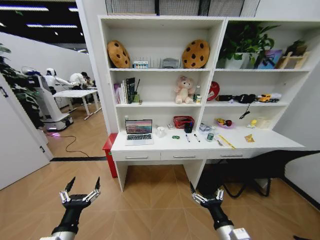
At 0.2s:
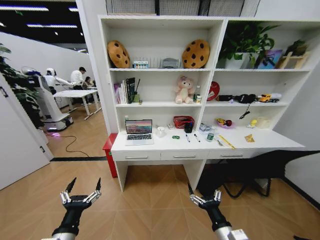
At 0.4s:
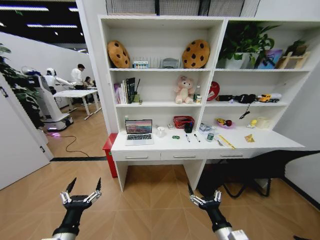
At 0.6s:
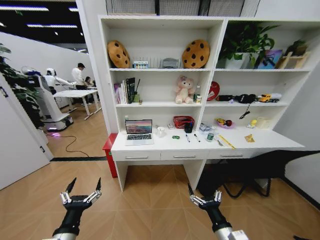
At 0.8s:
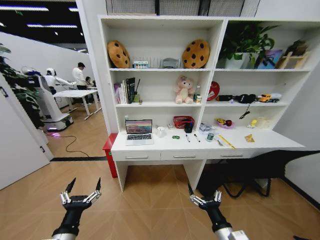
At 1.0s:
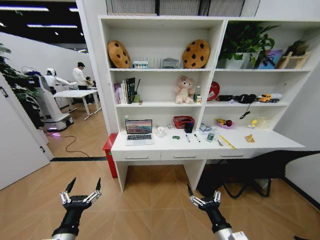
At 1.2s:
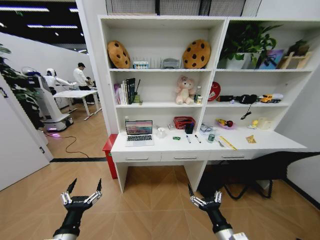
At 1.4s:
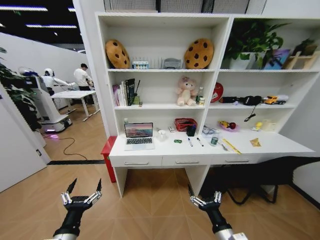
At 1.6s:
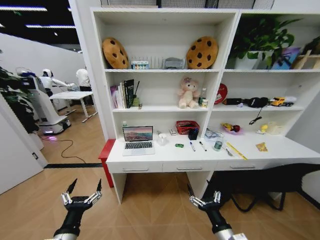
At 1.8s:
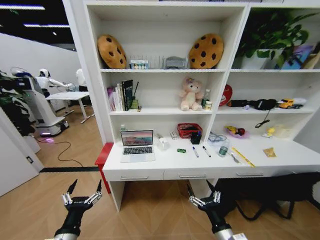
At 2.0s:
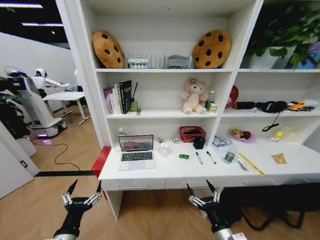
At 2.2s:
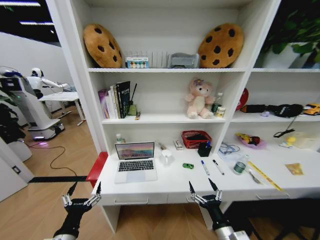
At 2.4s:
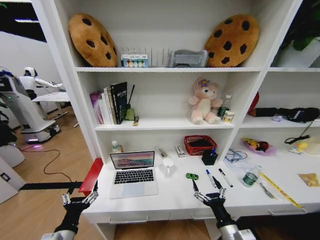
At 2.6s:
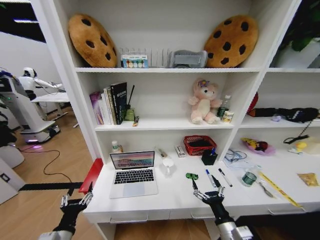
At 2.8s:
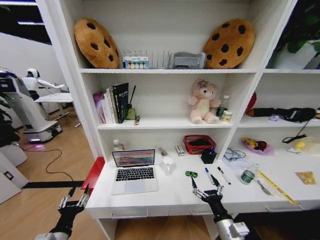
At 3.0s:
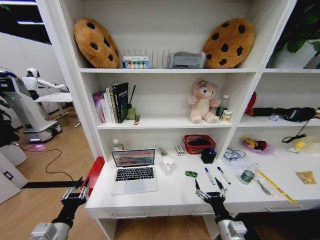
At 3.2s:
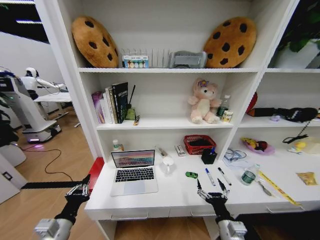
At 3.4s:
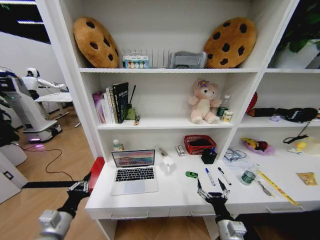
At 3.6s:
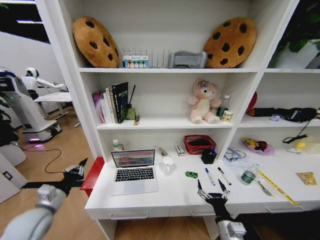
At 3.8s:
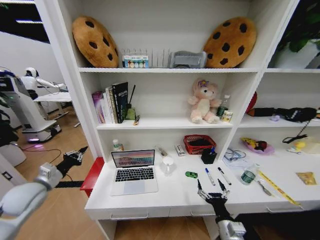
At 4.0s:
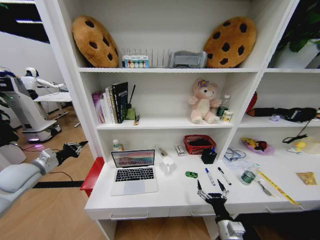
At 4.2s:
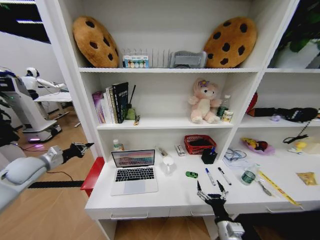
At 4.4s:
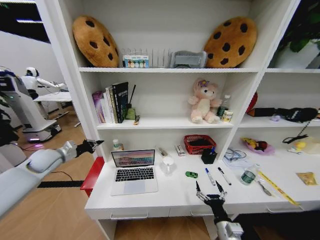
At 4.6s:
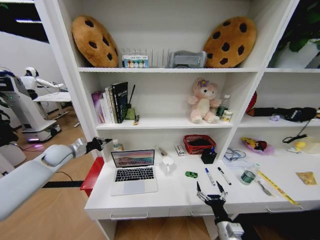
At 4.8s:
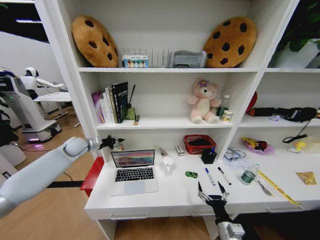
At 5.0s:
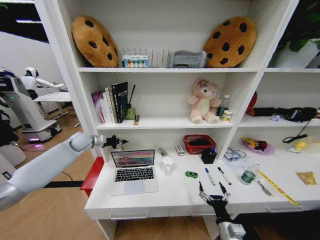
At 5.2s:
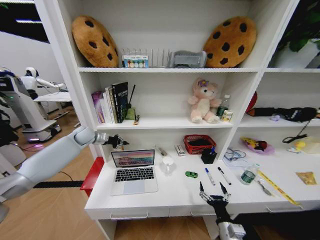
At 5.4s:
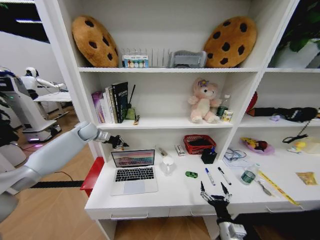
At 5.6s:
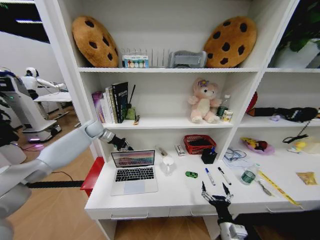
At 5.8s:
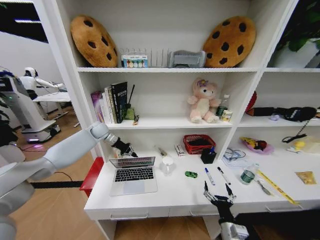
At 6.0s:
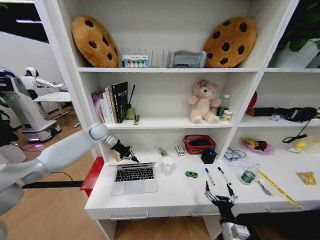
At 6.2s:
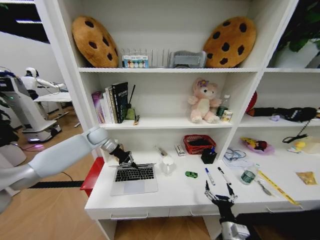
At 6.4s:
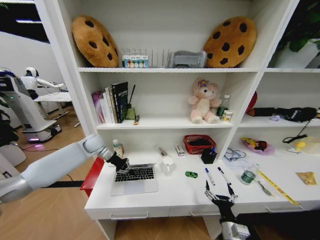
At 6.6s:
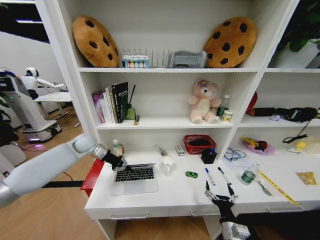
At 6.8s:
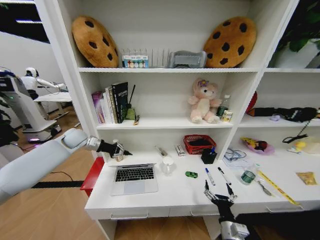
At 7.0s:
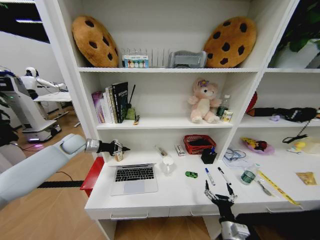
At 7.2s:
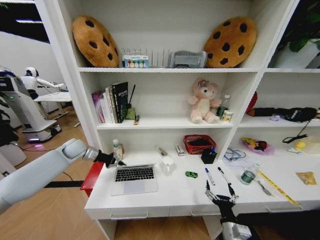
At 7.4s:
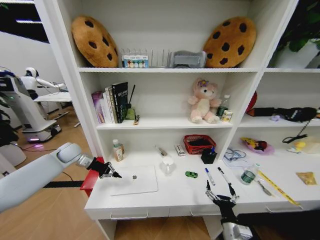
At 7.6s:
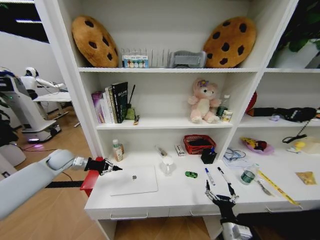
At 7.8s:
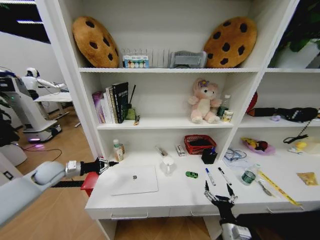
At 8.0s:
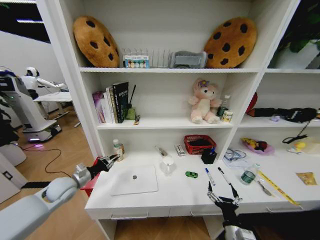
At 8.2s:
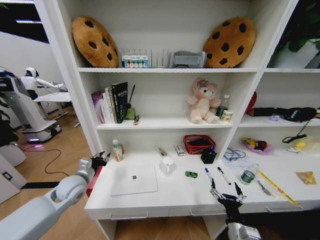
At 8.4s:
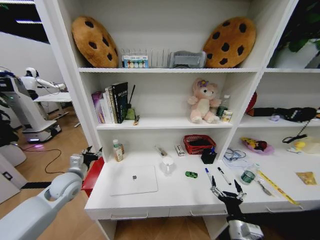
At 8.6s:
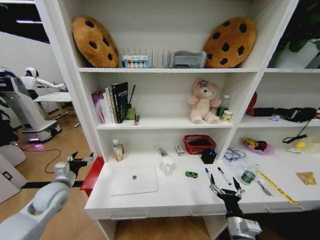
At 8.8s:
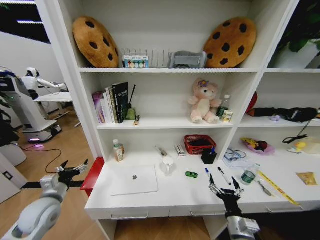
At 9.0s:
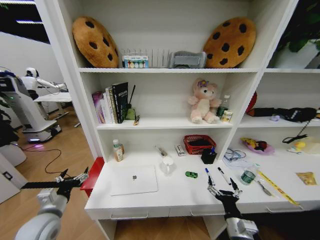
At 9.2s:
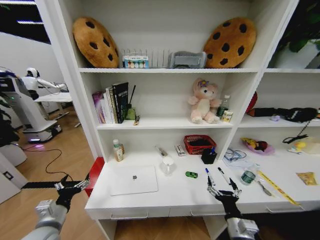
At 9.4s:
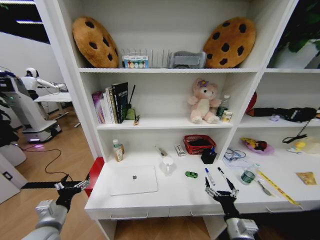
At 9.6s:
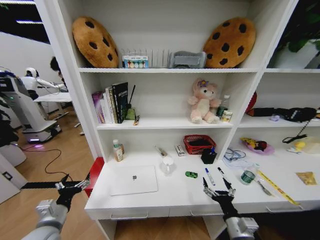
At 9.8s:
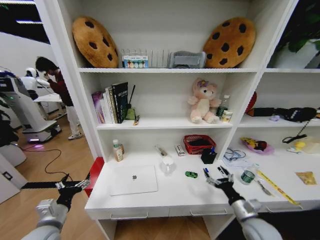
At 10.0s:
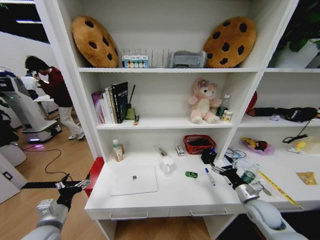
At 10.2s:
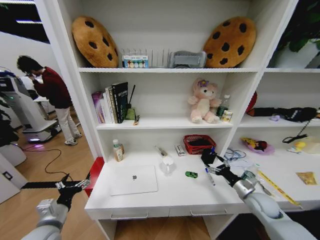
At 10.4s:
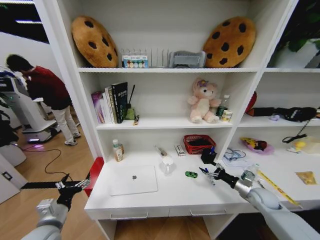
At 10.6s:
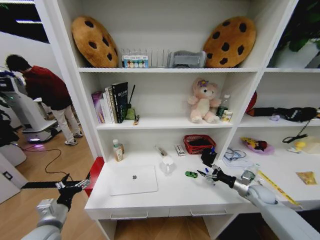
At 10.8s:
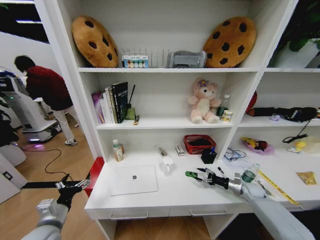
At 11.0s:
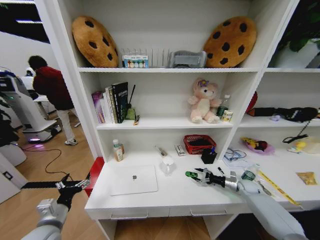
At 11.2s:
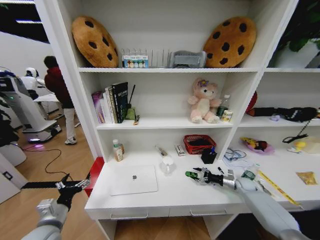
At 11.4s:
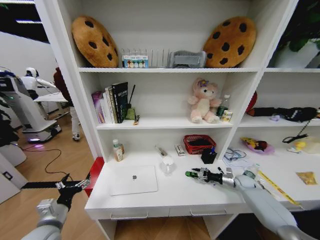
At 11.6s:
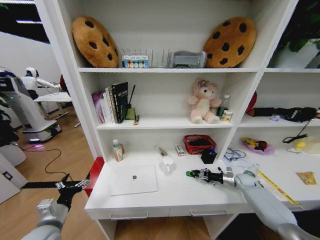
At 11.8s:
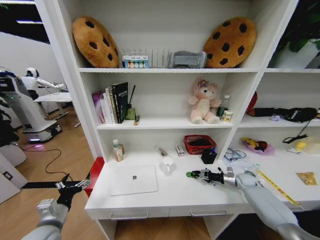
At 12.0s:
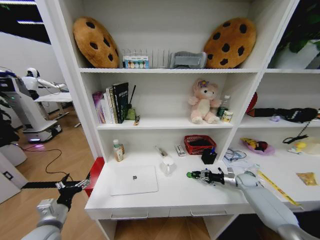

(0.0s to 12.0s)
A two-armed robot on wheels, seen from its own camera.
Task of the whole recording: Organize the objects on the table.
1.6s - 3.0s: The left gripper ends up about 5 cm from where it was, and closes.
3.0s - 4.4s: The left gripper shifts roughly 30 cm forward and to the left.
4.4s - 6.0s: The left gripper heads to the right and forward, covering some 20 cm.
6.0s - 7.6s: The left gripper is displaced to the left, backward and downward by about 20 cm.
7.6s - 9.0s: The left gripper moves backward, about 25 cm, and opens.
9.0s - 10.4s: The right gripper moves to the right and forward, approximately 30 cm.
10.4s - 12.0s: The right gripper moves forward, about 10 cm, and closes.

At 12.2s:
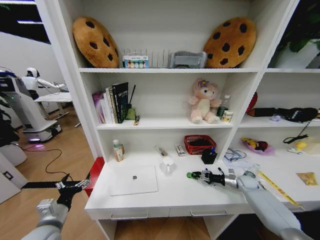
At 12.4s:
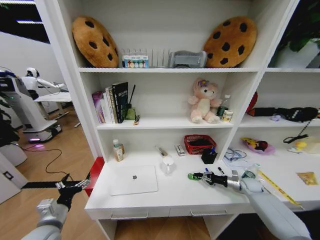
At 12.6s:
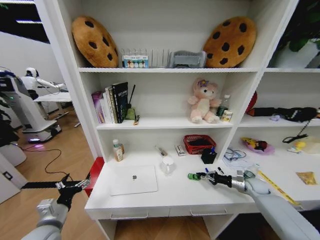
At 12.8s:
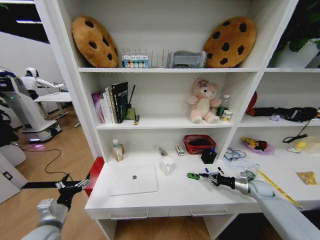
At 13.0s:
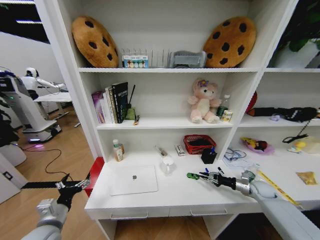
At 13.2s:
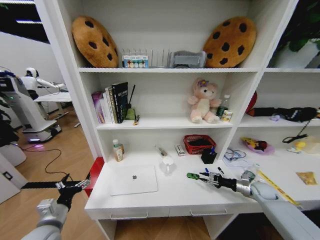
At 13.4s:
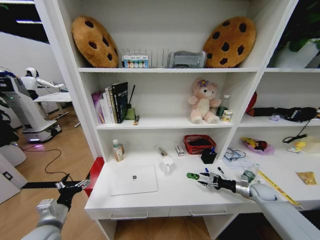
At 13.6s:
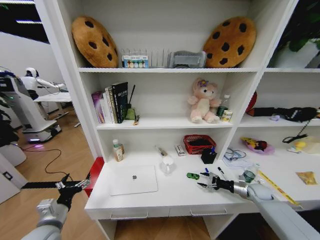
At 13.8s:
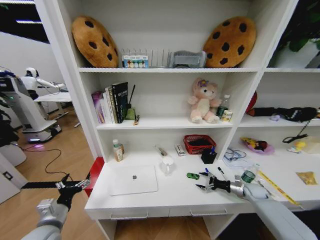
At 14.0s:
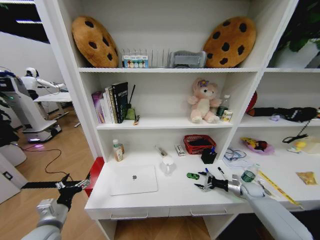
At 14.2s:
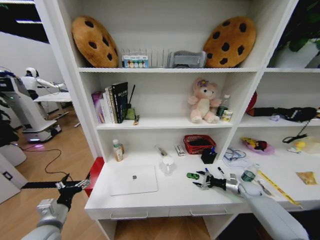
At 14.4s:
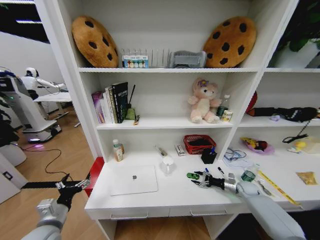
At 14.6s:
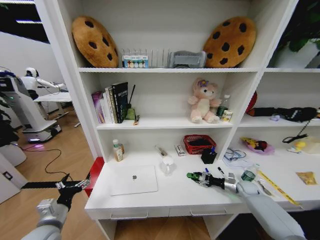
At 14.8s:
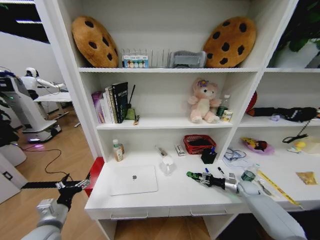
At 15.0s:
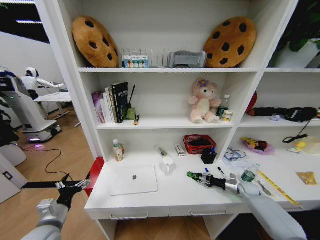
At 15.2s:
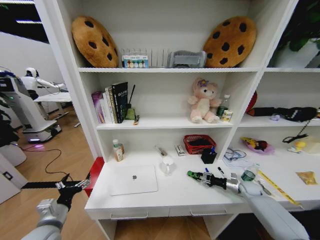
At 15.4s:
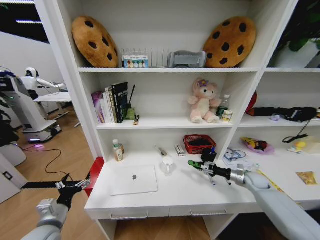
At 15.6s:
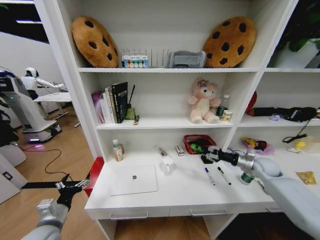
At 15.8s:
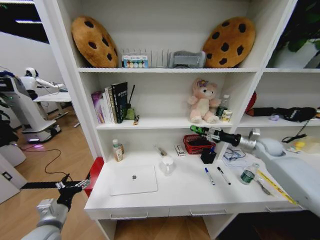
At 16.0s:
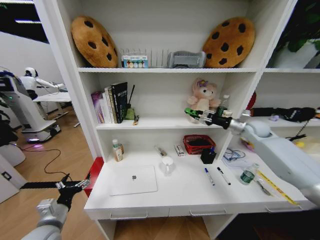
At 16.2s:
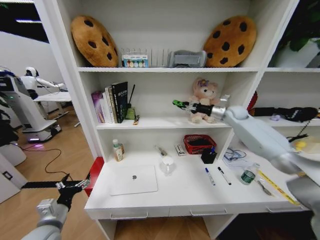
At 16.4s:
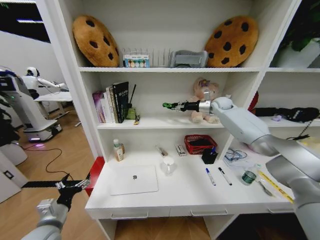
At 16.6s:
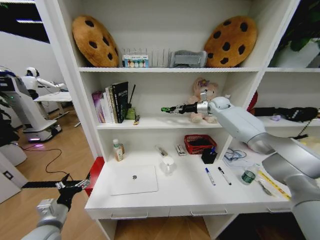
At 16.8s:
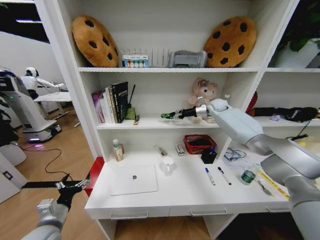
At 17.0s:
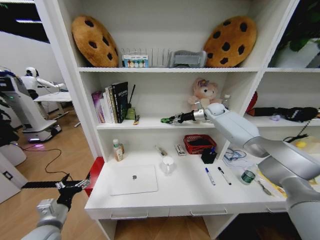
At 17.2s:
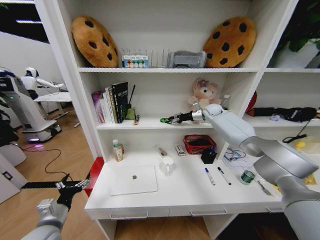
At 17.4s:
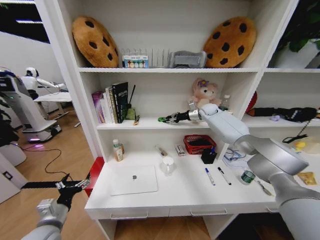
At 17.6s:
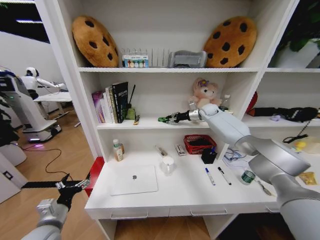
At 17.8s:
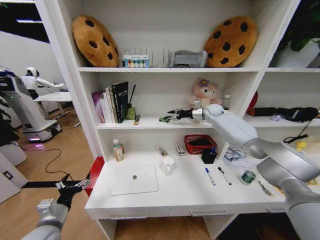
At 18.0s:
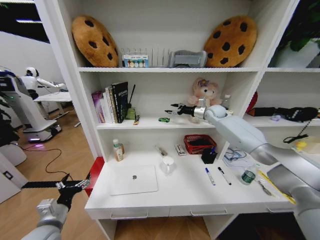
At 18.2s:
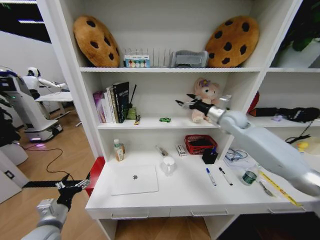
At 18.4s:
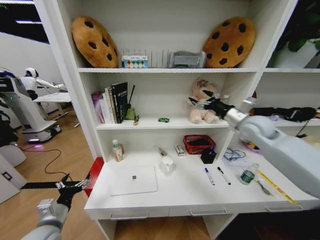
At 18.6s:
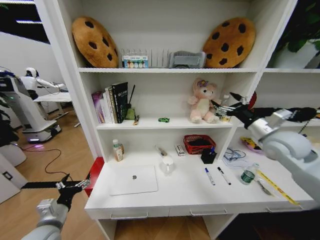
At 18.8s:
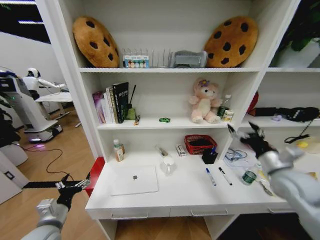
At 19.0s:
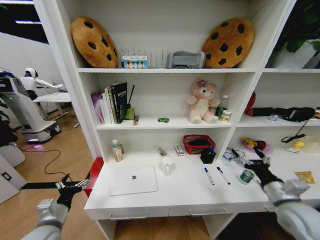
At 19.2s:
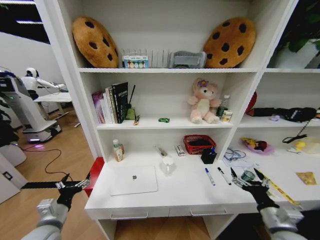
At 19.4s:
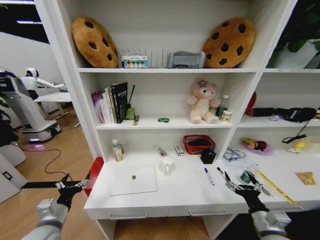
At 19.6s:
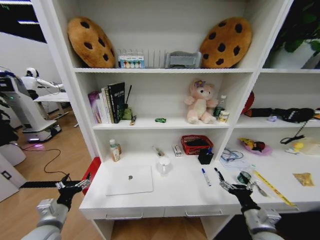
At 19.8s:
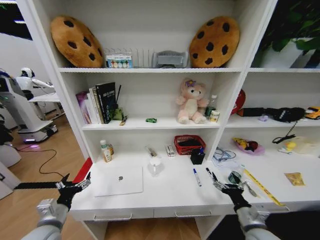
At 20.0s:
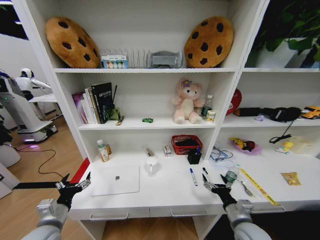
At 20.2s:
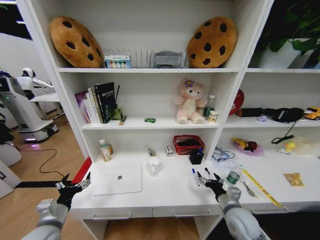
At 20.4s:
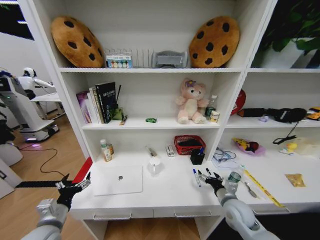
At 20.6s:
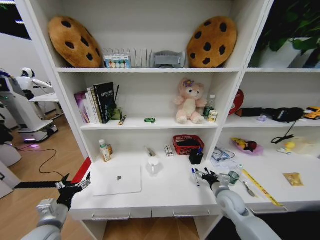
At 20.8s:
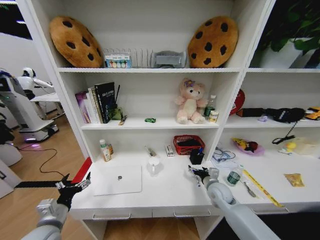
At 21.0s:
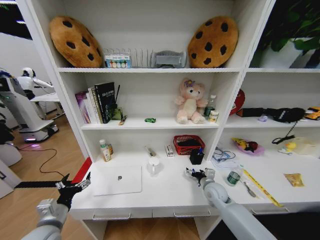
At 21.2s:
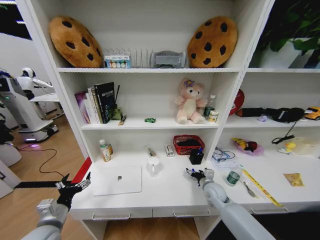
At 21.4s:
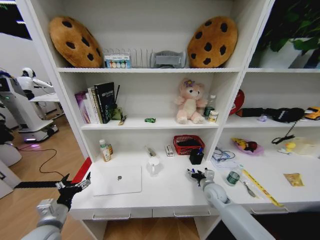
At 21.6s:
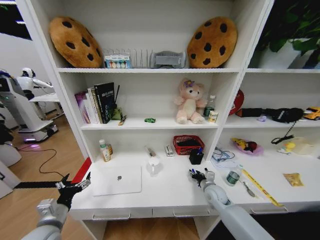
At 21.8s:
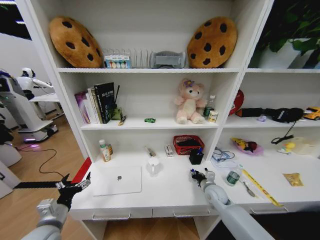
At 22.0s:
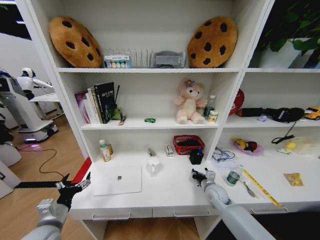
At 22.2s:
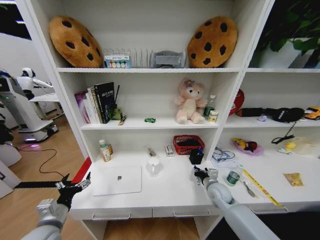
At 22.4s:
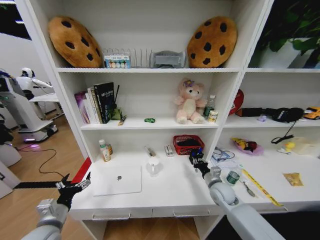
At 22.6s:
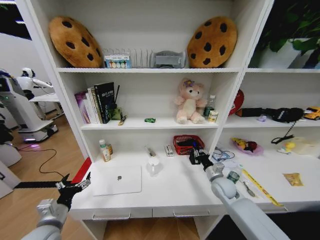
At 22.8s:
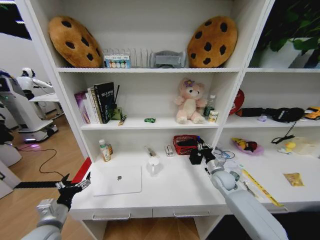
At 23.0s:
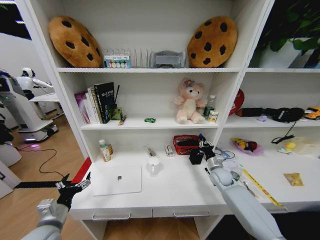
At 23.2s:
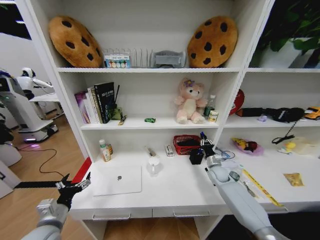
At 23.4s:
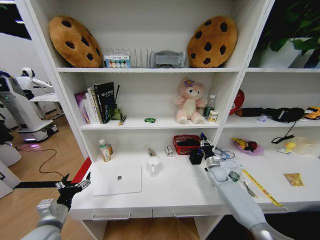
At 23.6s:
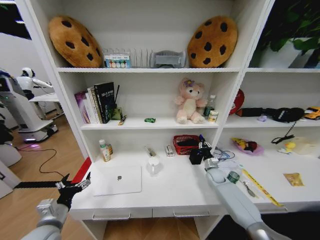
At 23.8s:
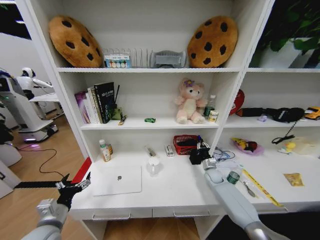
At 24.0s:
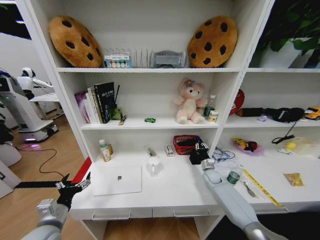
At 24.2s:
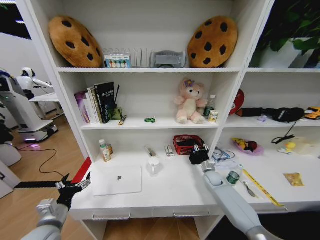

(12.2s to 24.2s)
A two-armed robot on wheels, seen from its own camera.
Task of the whole recording: Organize the objects on the table.
12.2s - 13.8s: The right gripper opens.
13.8s - 15.2s: The right gripper closes.
15.2s - 16.6s: The right gripper is displaced upward, forward and to the left by some 50 cm.
16.6s - 18.2s: The right gripper goes about 15 cm backward, and opens its fingers.
18.2s - 19.8s: The right gripper heads backward and downward, covering roughly 40 cm.
19.8s - 21.2s: The right gripper goes about 20 cm forward.
21.2s - 22.6s: The right gripper moves roughly 5 cm, and closes its fingers.
22.6s - 24.2s: The right gripper travels forward and downward by some 10 cm.
